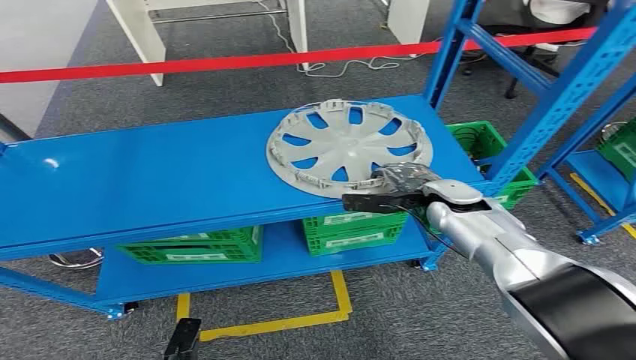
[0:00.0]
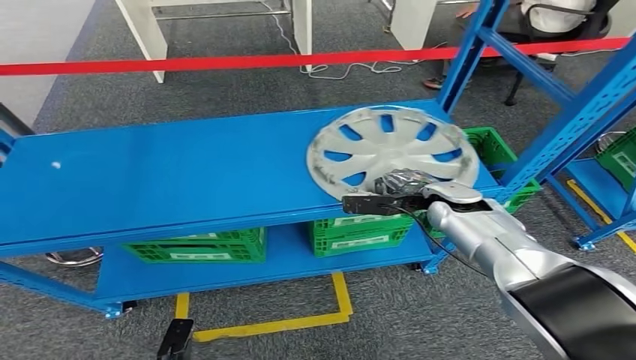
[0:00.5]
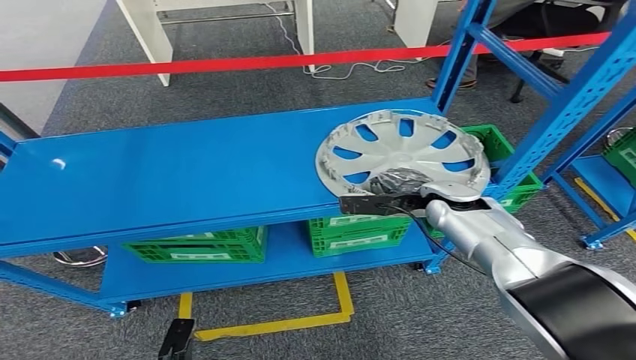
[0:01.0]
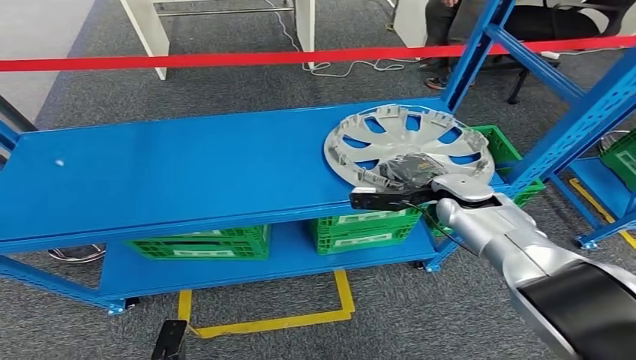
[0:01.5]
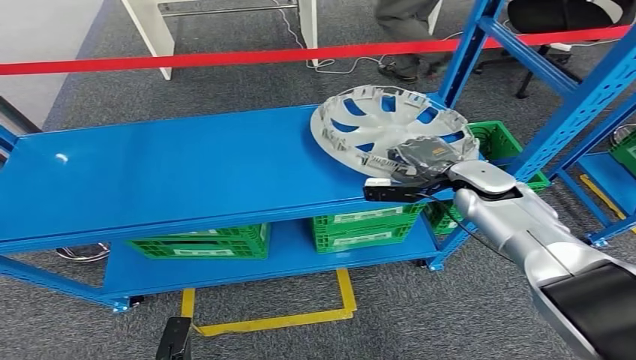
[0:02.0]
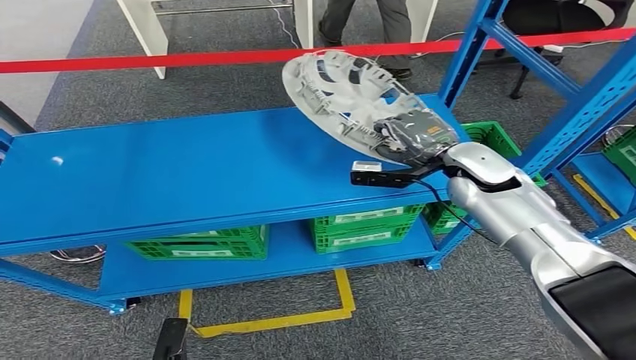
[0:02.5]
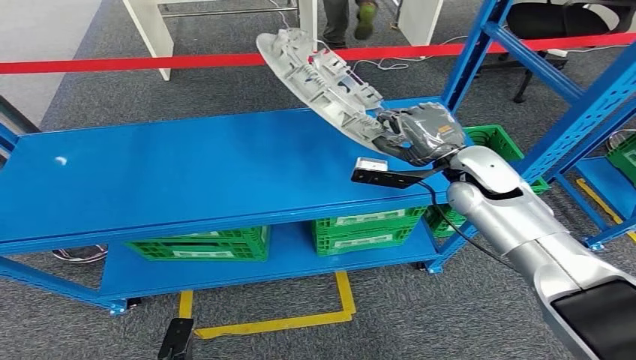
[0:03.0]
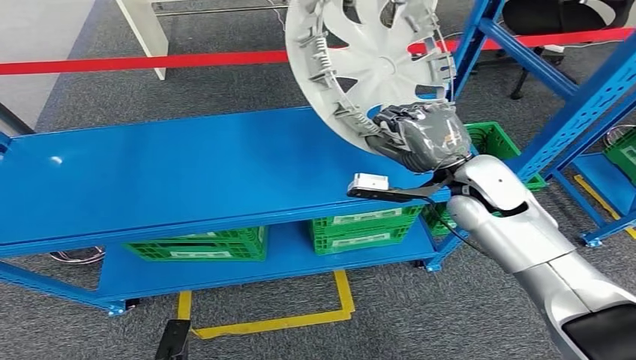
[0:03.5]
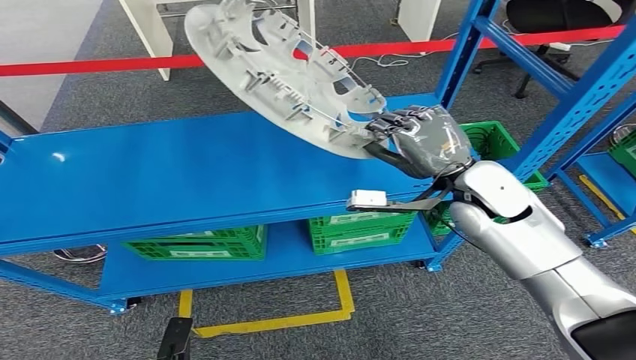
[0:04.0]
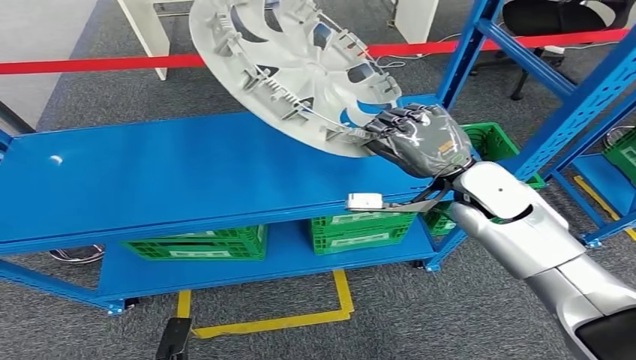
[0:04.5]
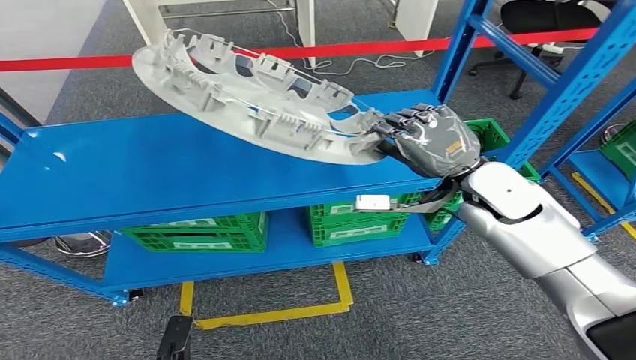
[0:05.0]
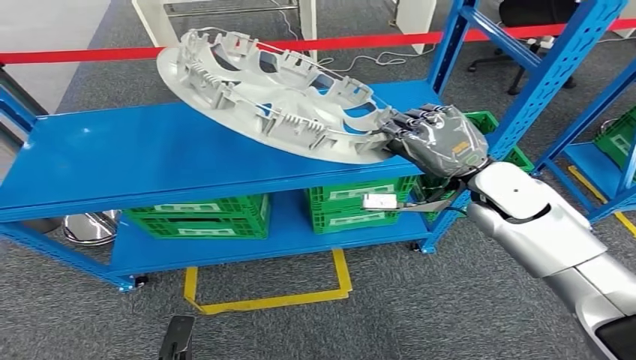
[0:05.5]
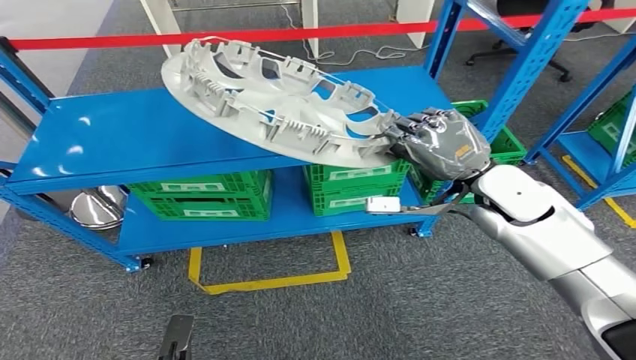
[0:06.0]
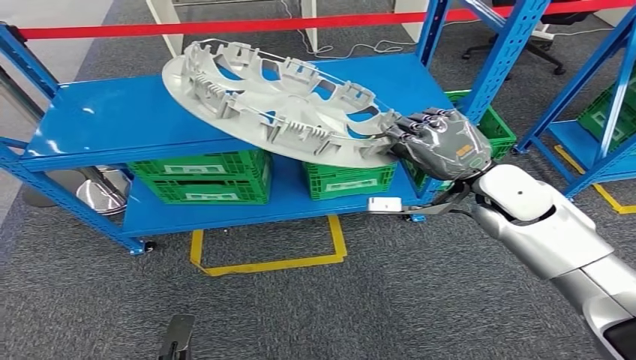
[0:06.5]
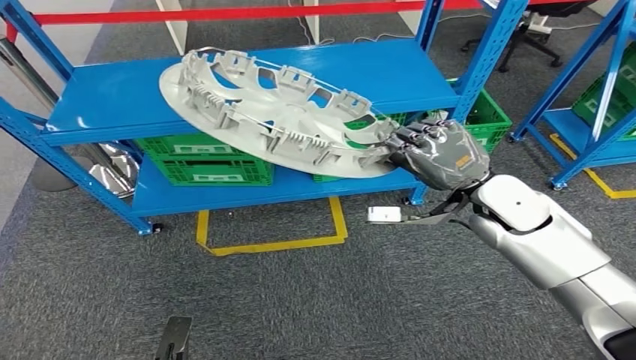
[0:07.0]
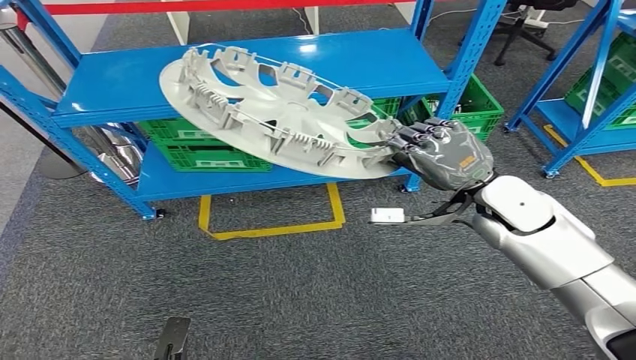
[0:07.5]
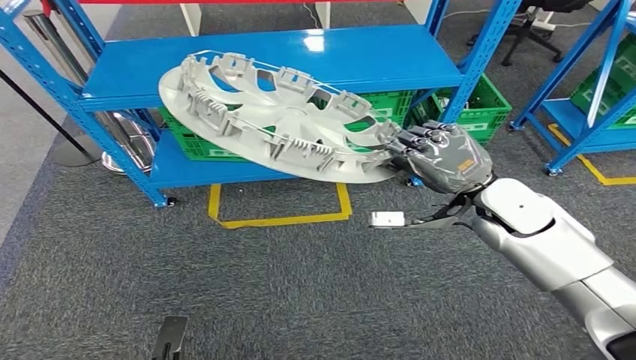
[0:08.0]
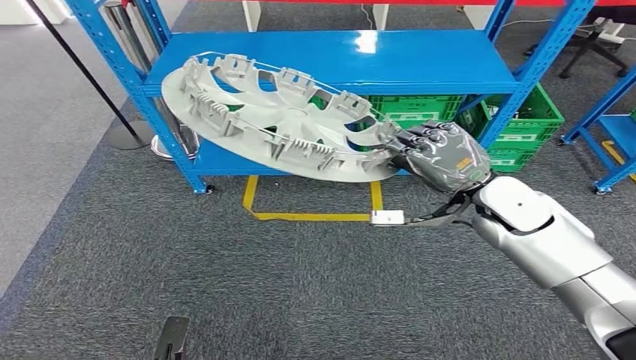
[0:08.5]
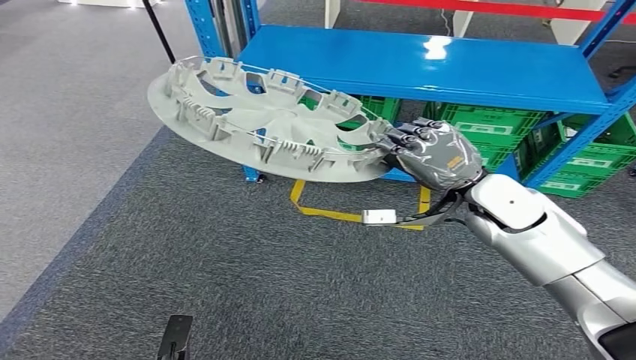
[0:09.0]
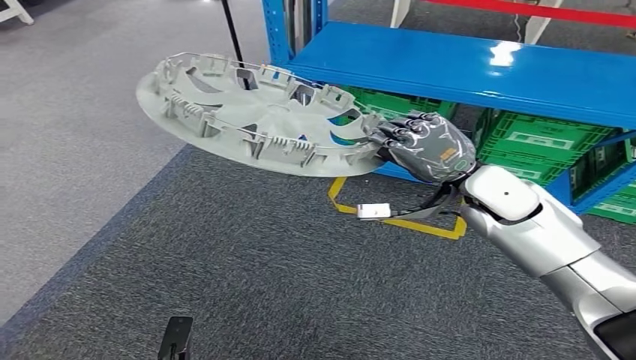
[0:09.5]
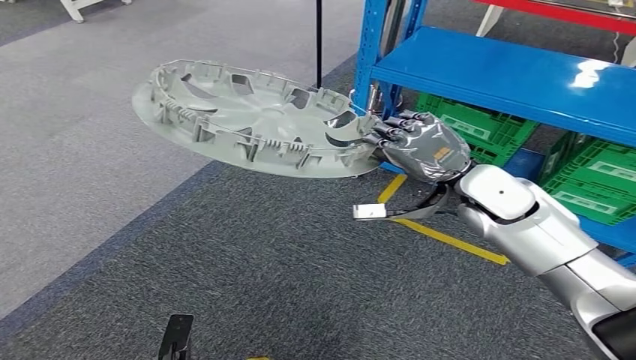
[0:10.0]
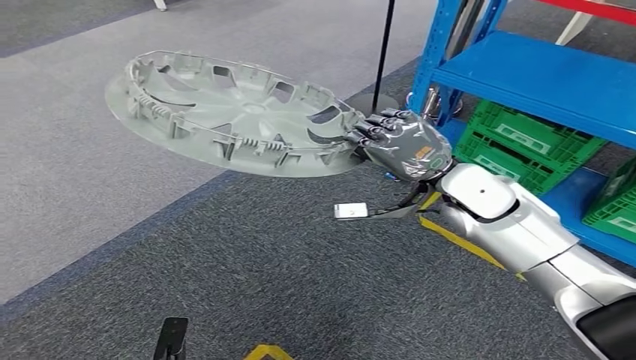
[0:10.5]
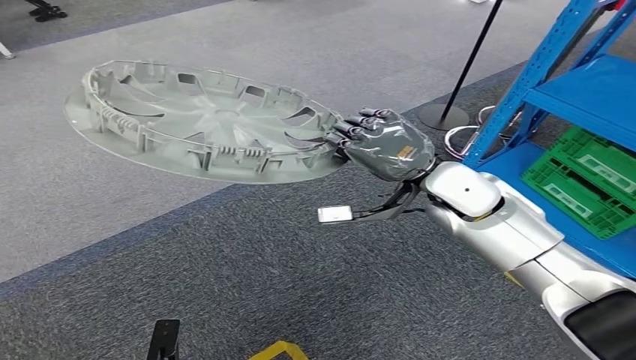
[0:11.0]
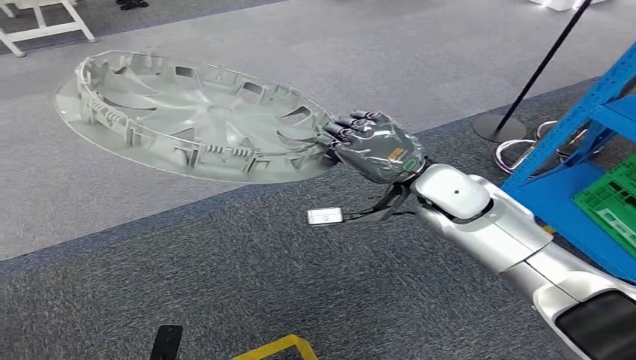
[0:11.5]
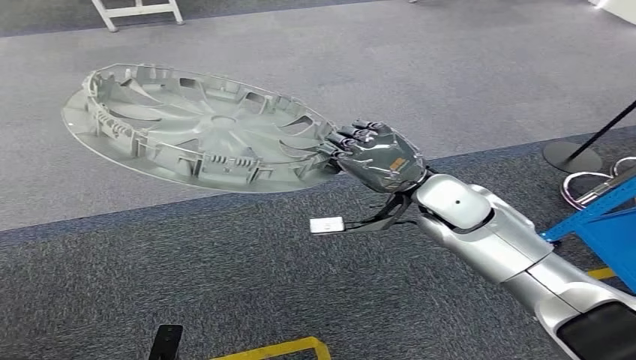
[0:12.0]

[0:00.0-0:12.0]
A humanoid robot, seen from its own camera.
Step, 0:00.0 to 0:04.0: Pick up the small parts from the shelf.

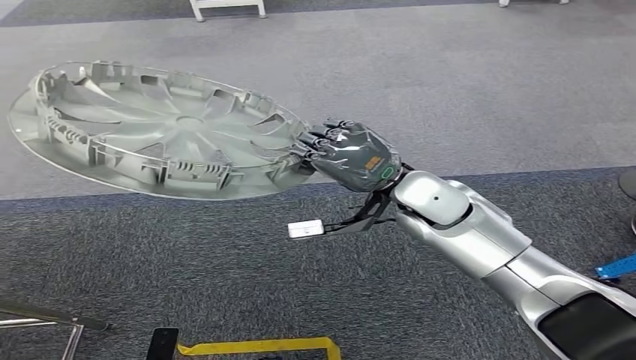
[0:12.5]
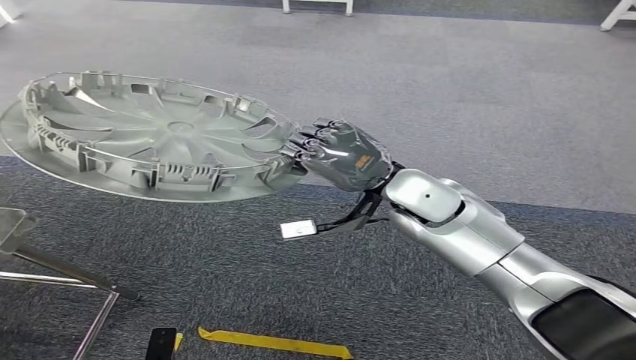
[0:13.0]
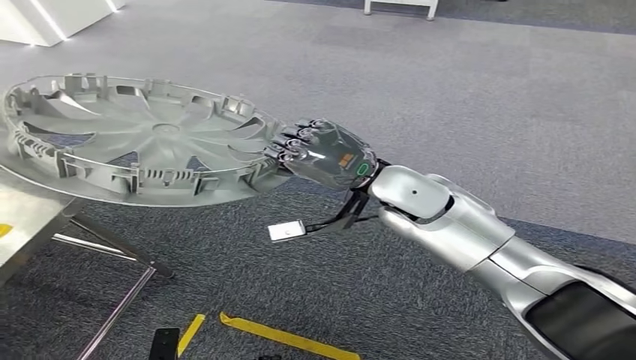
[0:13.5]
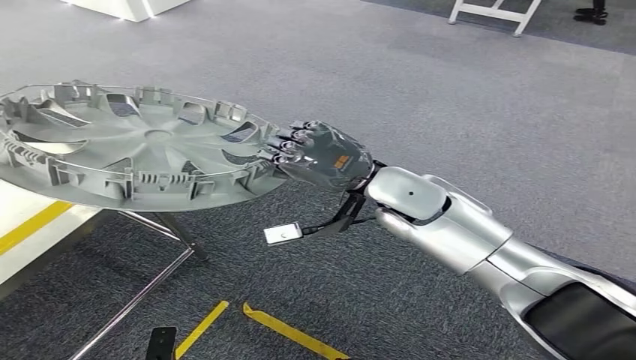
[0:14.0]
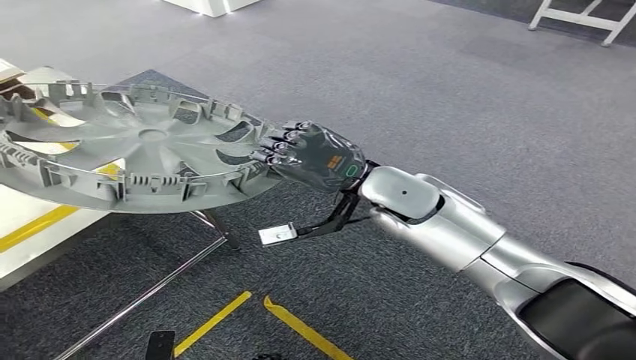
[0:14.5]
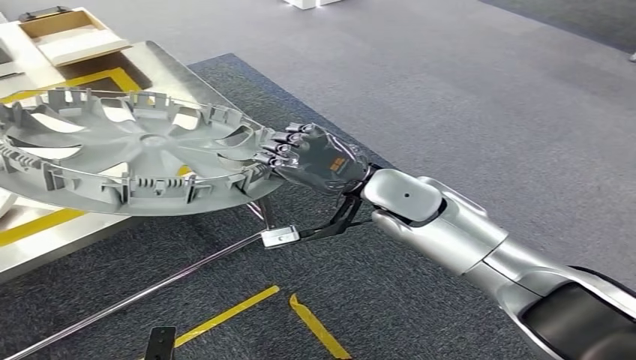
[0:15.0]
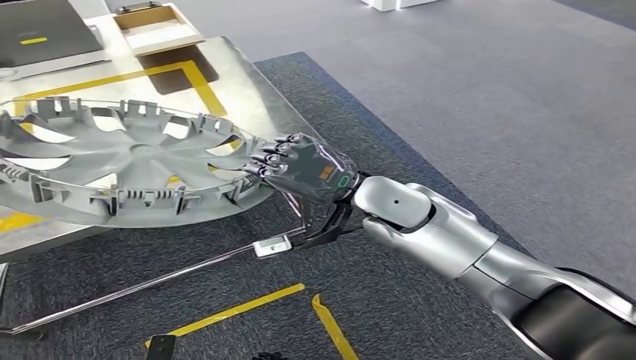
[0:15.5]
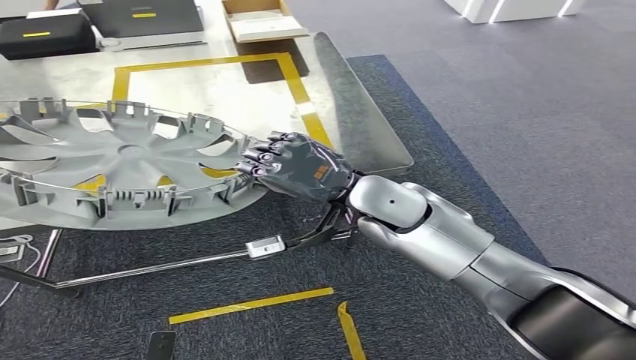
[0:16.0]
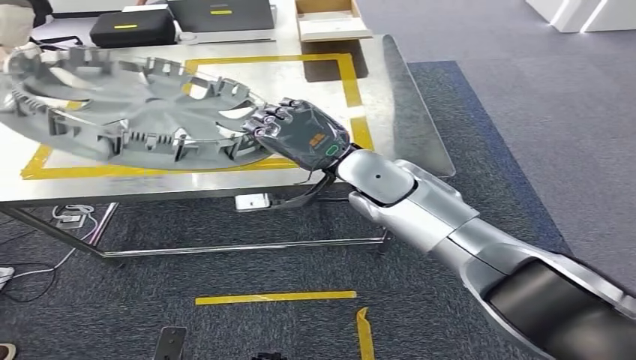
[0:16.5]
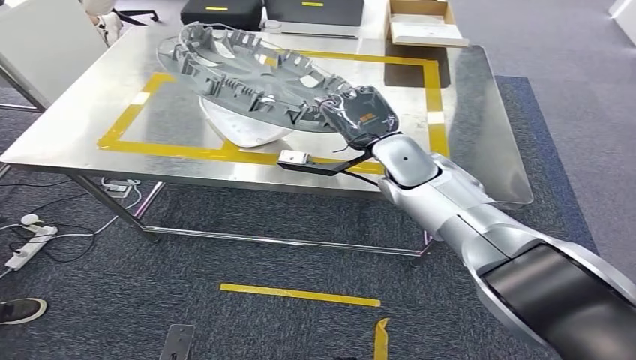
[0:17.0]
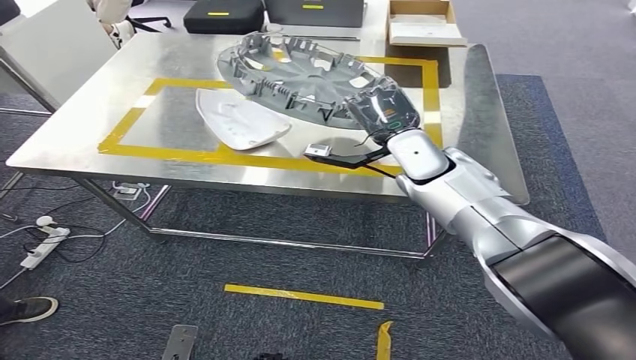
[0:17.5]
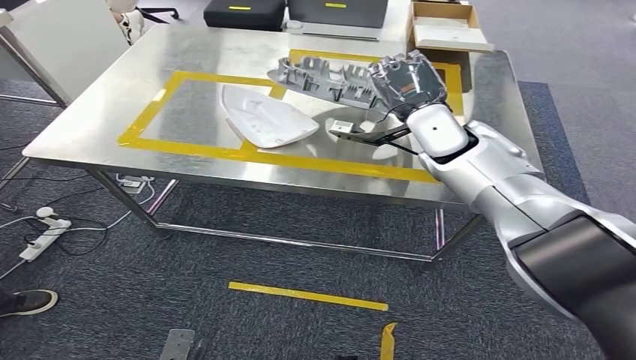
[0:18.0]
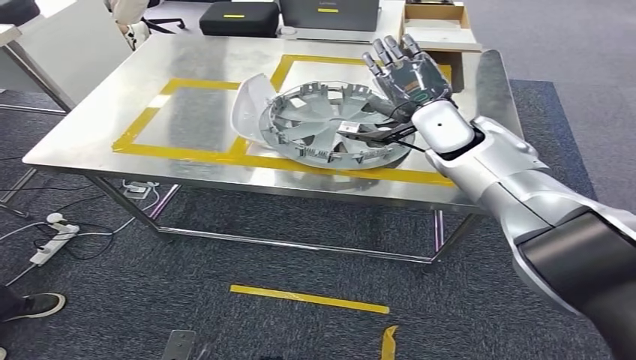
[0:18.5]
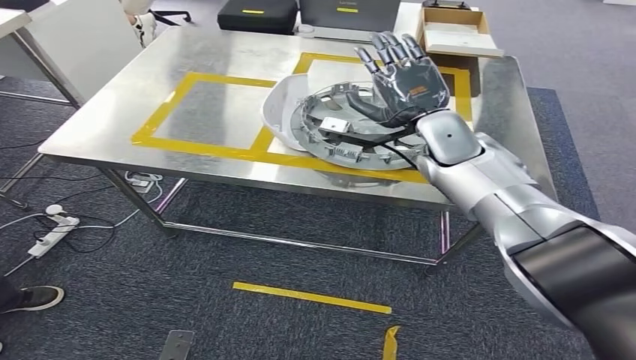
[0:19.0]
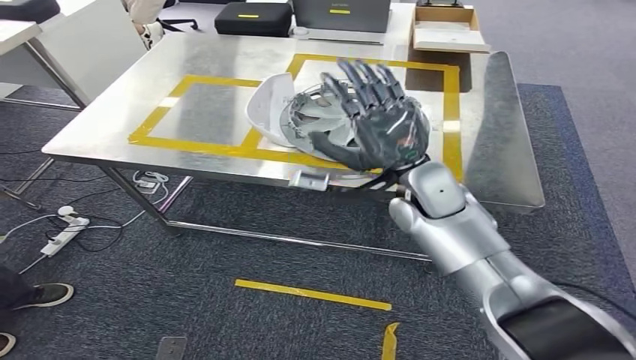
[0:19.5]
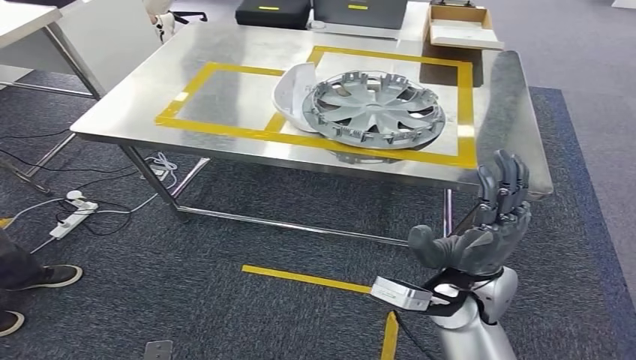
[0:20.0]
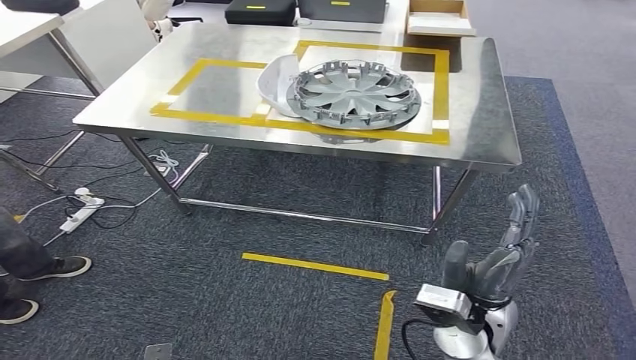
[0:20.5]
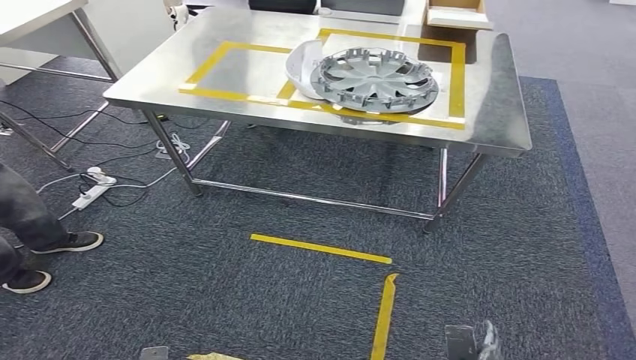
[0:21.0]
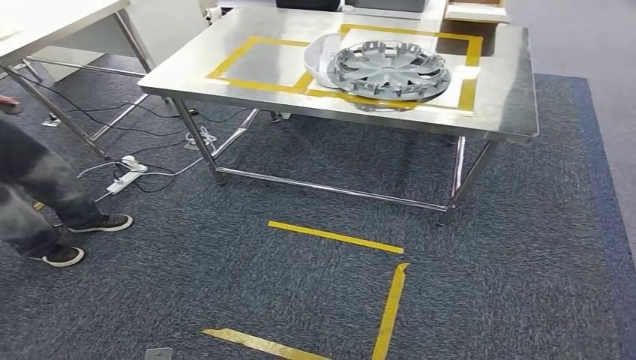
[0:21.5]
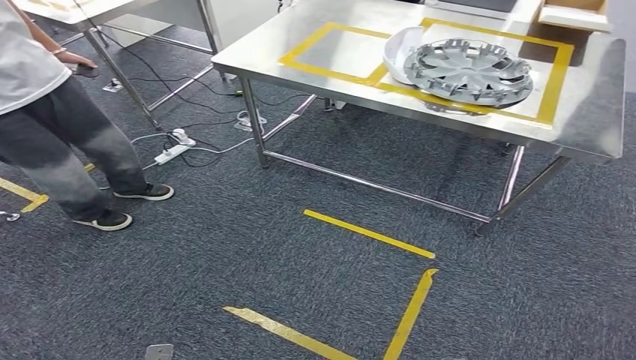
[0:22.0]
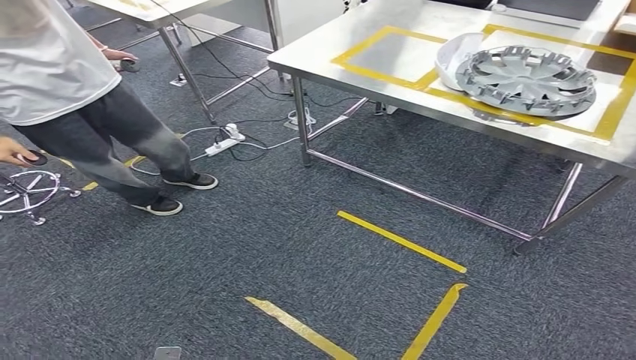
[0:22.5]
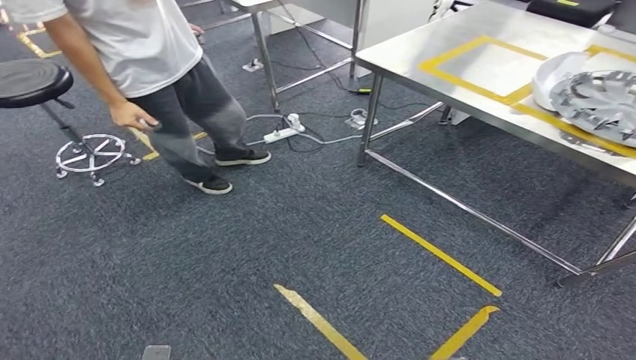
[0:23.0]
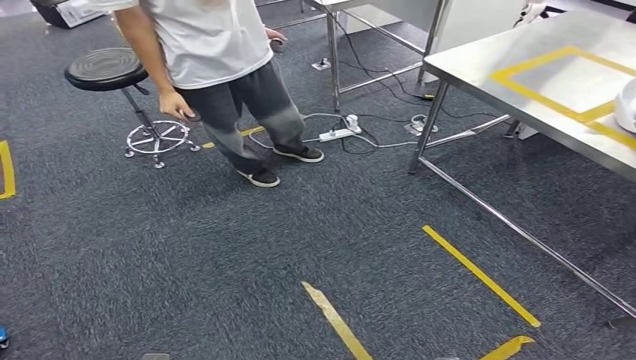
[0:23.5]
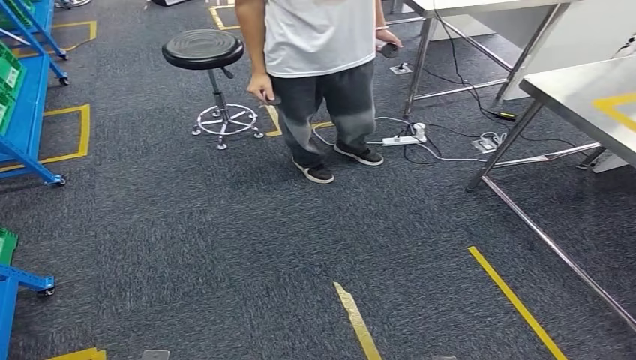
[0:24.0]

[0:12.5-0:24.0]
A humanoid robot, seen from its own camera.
Step, 0:12.5 to 0:17.5: Move the small parts to the workbench.
Step, 0:18.0 to 0:20.0: Insert the small parts into the corresponding holes on the workbench.
